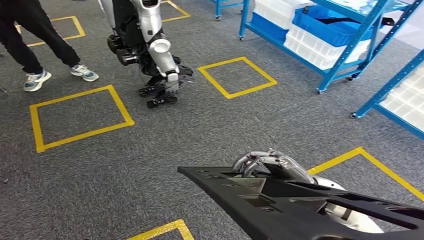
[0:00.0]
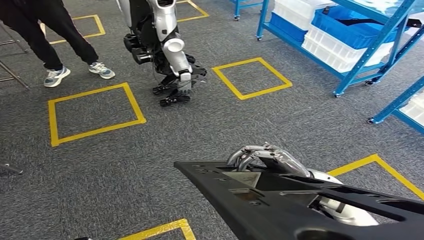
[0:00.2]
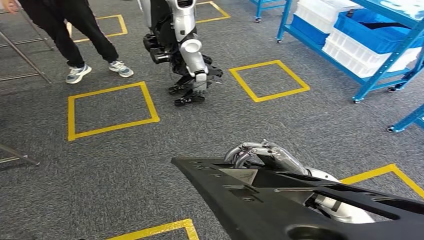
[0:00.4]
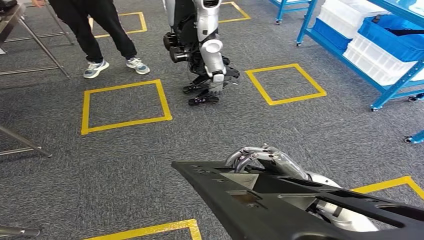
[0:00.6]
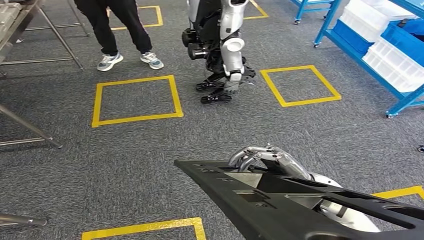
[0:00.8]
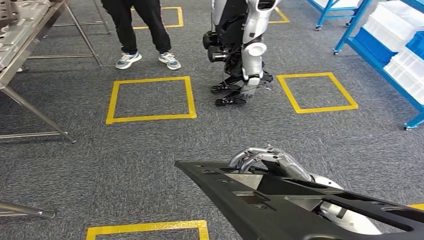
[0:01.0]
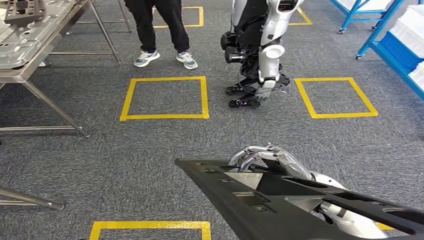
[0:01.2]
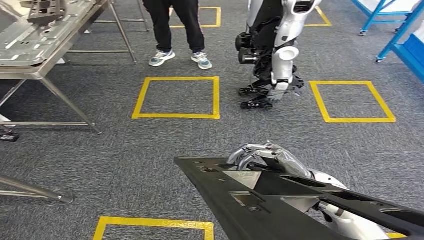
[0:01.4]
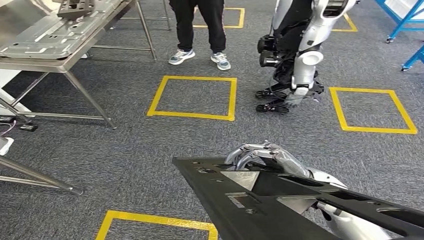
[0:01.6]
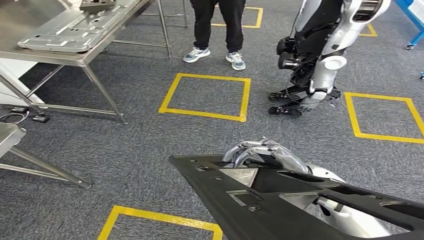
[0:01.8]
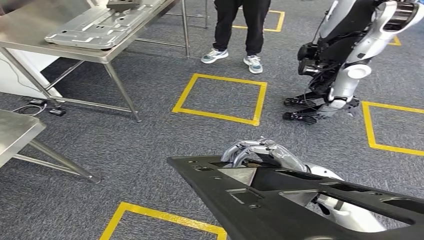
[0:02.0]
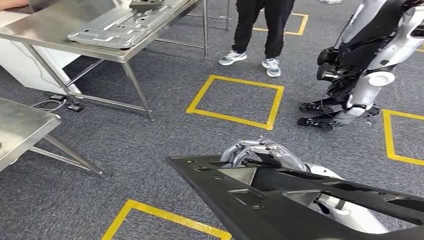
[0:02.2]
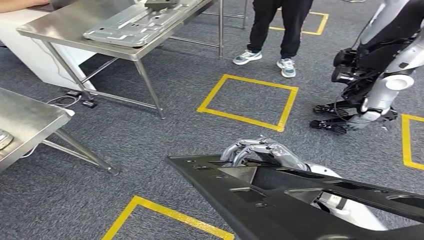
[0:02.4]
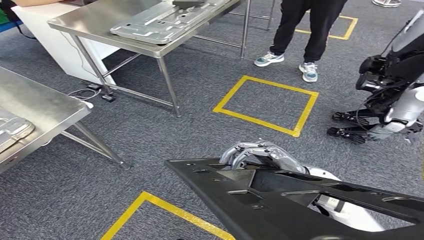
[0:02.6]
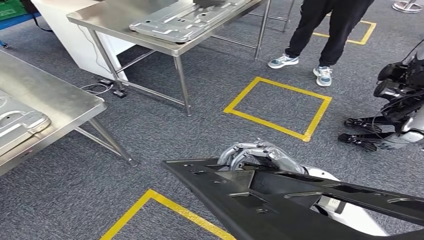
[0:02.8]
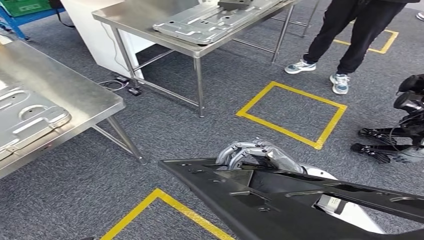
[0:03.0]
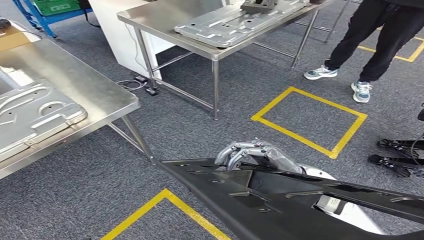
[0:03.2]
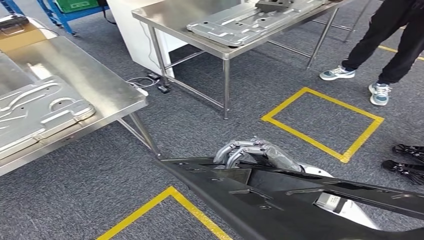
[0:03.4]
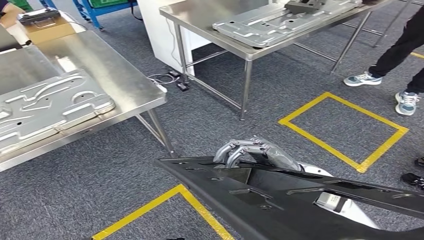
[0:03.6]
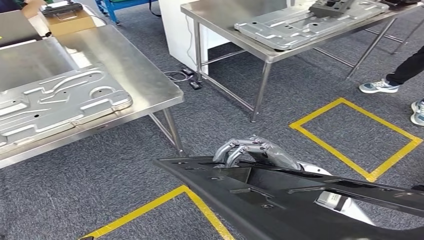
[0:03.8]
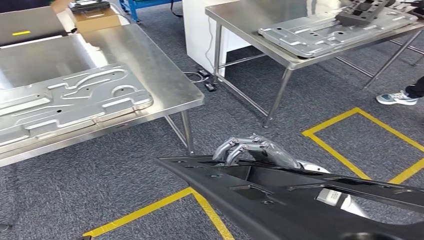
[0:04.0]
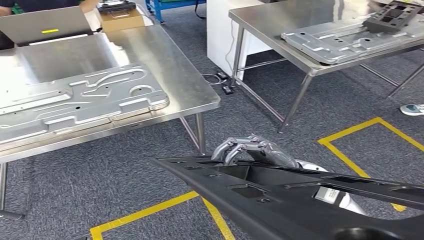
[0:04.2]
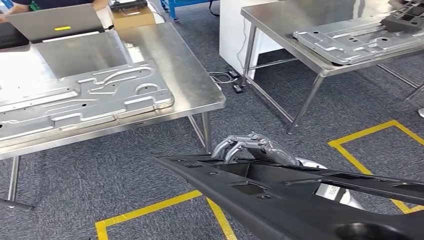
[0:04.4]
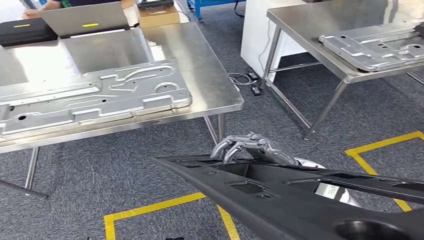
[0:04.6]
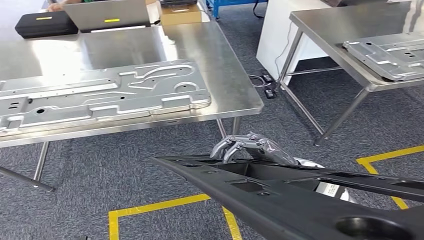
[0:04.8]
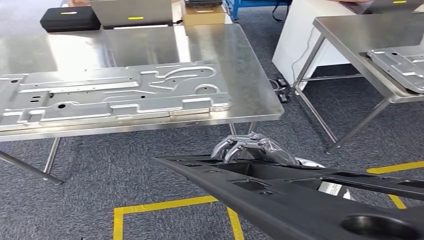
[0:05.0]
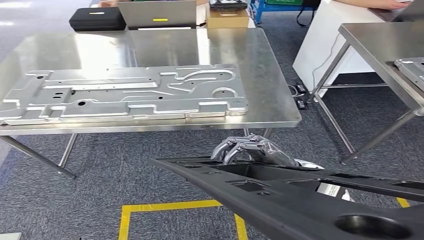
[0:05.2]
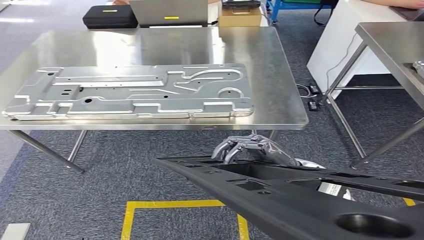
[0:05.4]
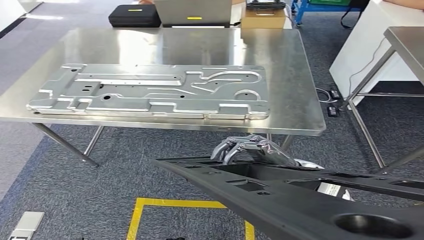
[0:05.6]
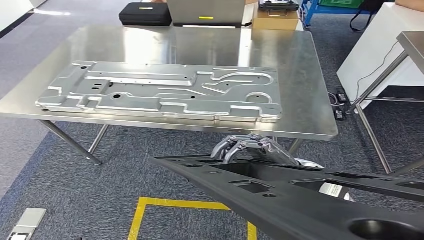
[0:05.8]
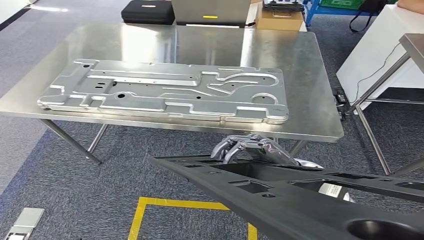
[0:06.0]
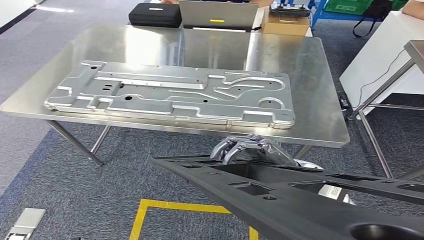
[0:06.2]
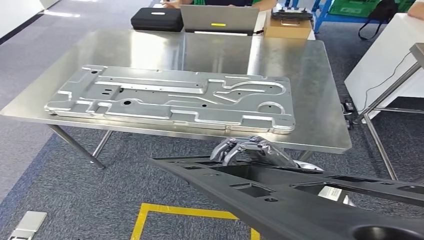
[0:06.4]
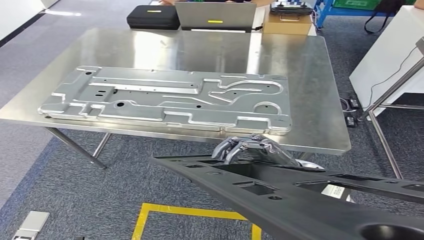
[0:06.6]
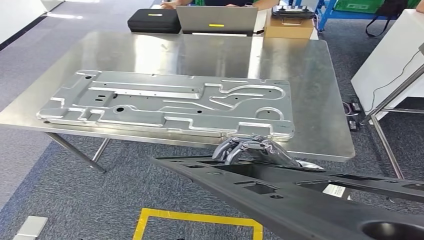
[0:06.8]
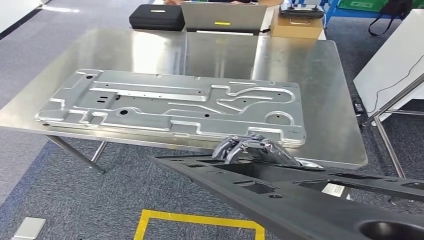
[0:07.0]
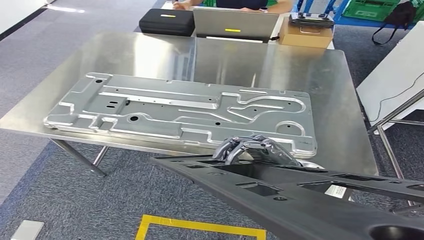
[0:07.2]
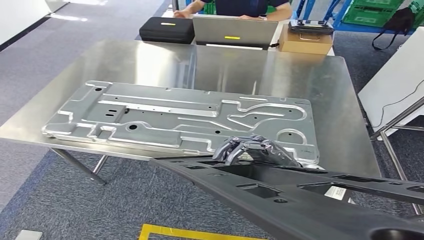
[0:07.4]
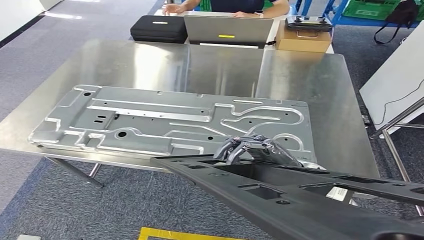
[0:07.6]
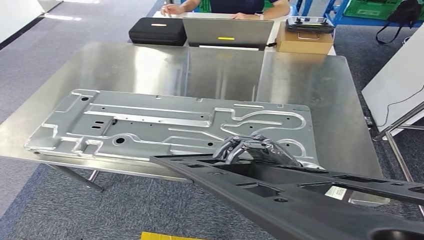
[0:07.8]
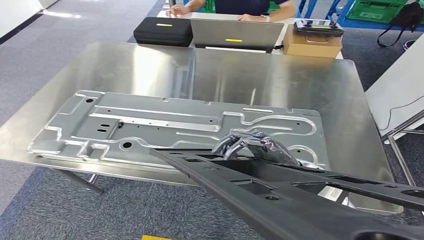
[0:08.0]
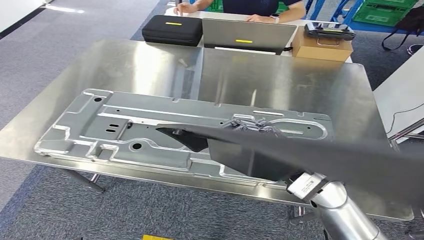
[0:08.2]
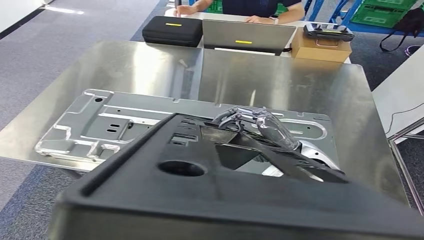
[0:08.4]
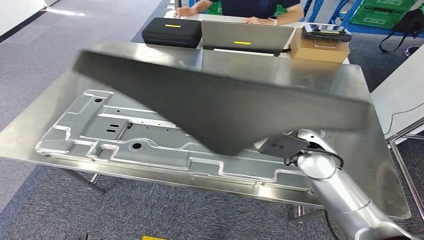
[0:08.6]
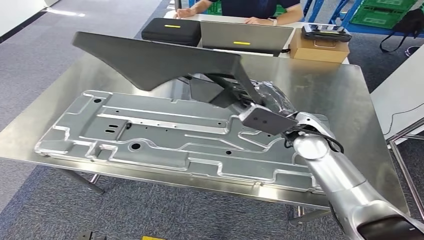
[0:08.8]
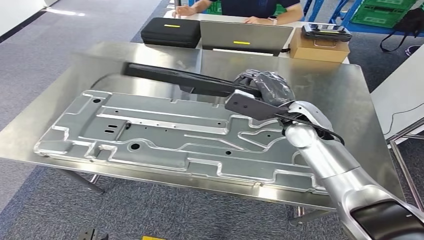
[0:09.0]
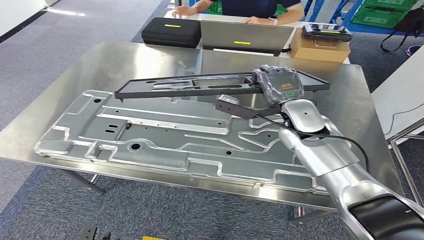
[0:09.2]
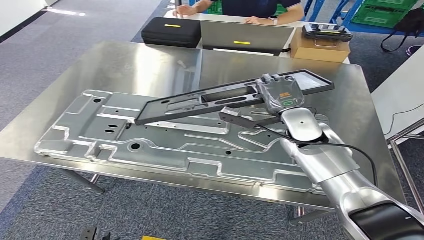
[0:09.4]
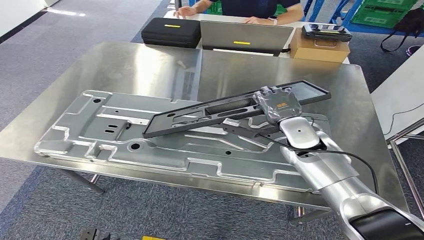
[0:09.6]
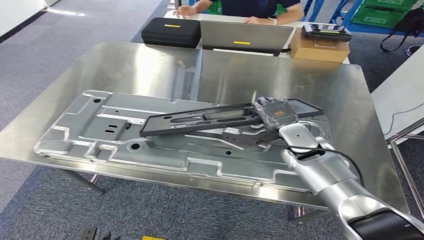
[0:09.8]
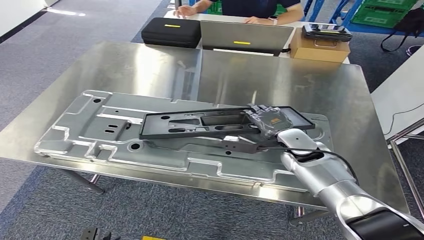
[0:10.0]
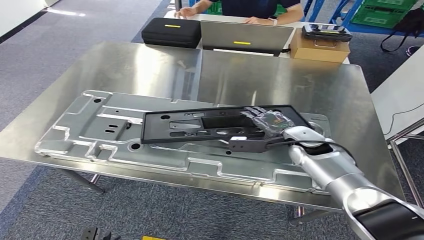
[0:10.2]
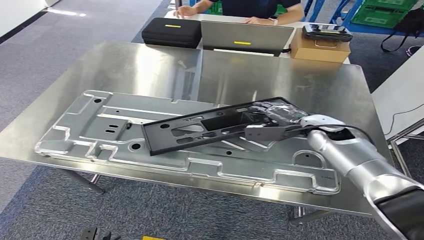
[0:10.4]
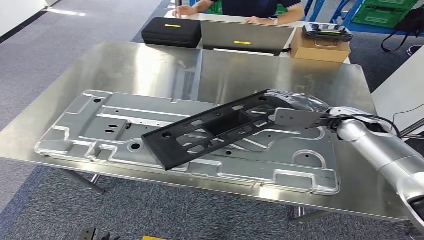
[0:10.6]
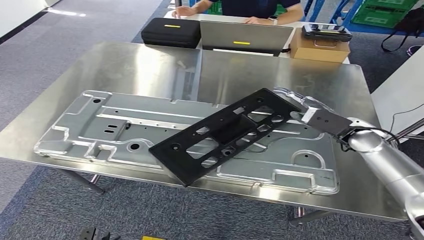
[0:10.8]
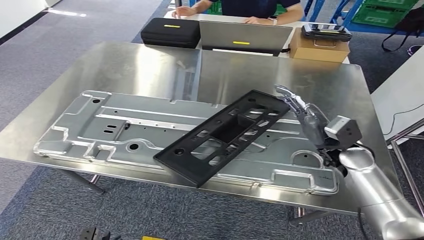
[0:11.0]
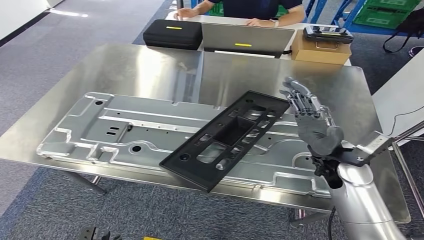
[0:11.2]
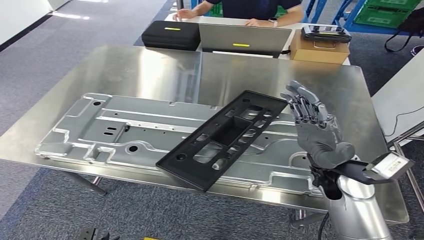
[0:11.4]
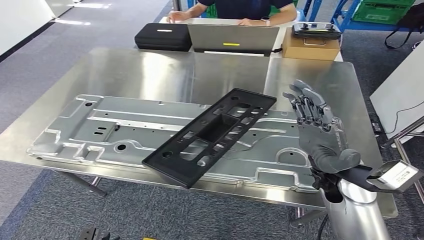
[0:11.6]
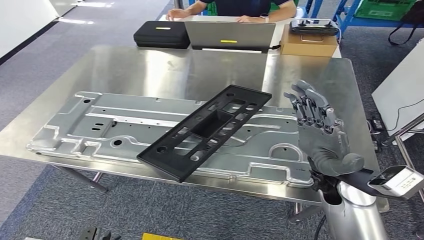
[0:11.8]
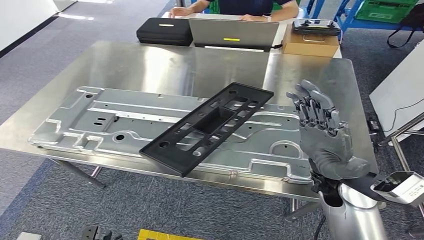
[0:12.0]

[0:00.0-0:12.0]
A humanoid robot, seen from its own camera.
Step, 0:00.0 to 0:09.2: Move the small component to the workbench.
Step, 0:09.4 to 0:12.0: Insert the small component into the corresponding slot on the workbench.

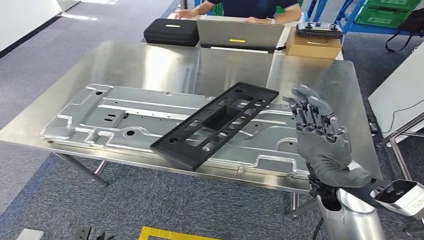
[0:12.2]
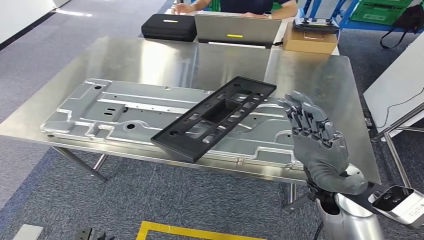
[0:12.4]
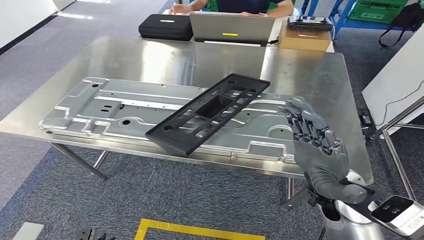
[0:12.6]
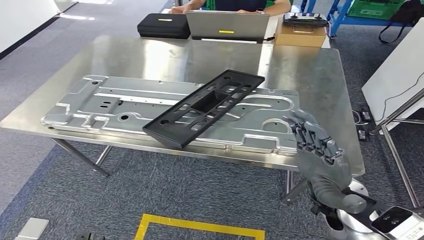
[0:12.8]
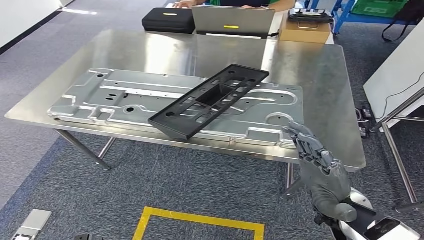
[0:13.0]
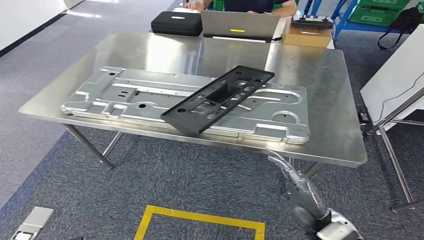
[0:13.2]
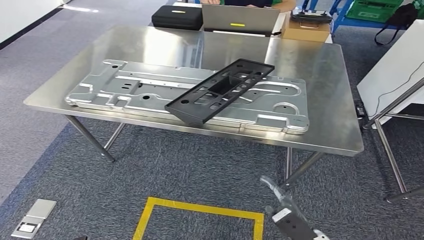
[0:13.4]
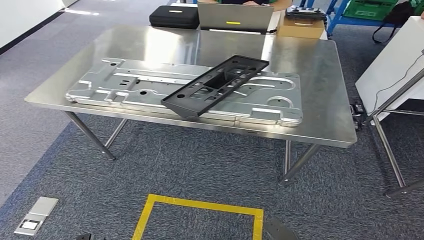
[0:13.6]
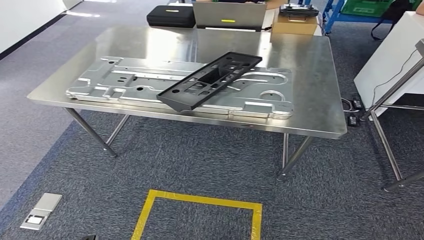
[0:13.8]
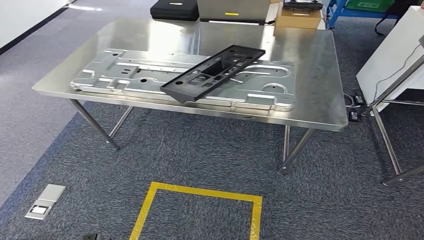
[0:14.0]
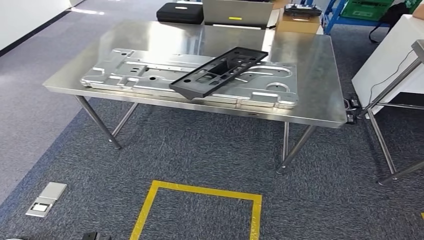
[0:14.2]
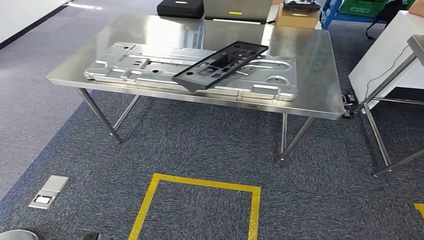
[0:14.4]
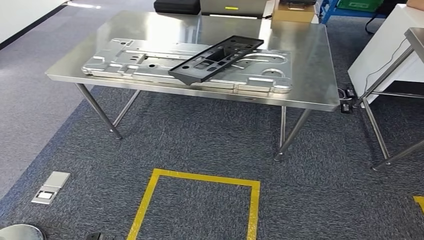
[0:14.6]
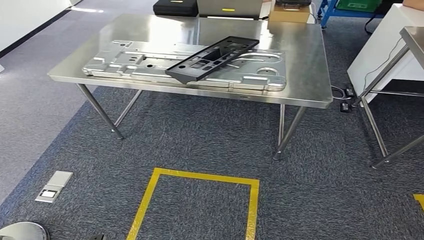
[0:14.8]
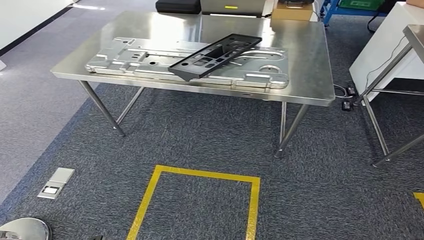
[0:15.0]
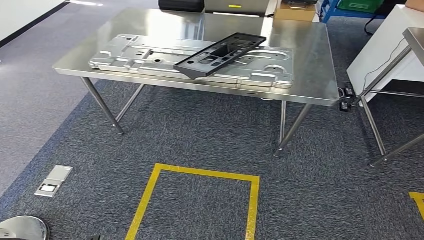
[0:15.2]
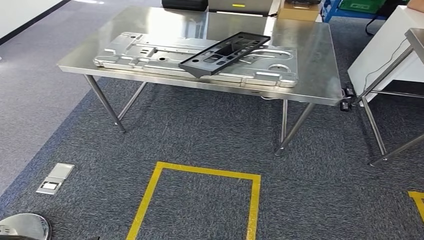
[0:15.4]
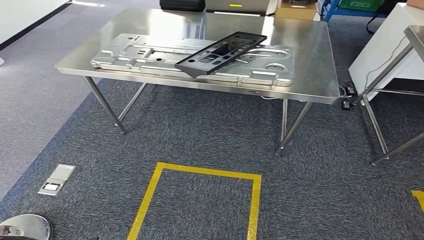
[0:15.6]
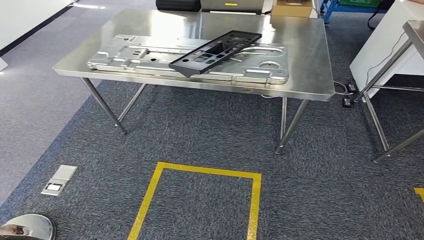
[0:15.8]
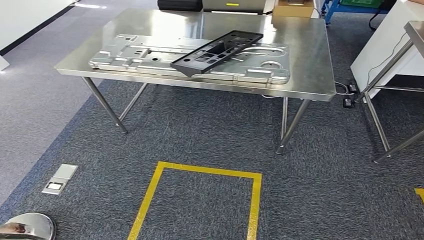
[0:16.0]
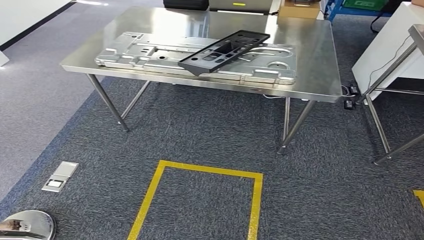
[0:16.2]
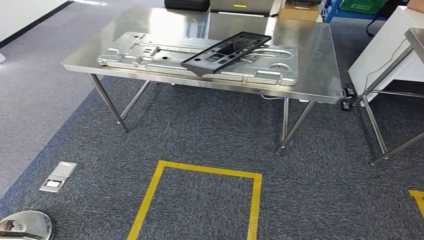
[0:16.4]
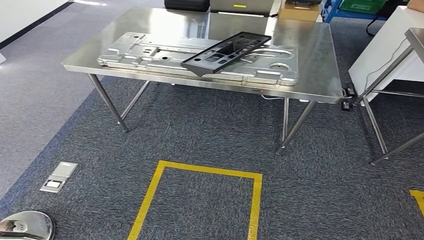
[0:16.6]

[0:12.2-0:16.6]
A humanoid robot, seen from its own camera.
Step, 0:12.2 to 0:16.6: Return to the initial position at the workbench.
0:15.2 to 0:16.6: The left hand heads backward, covering some 5 cm.
